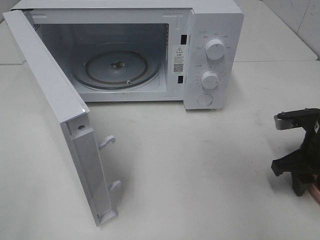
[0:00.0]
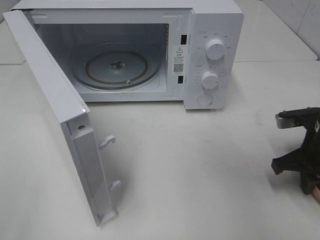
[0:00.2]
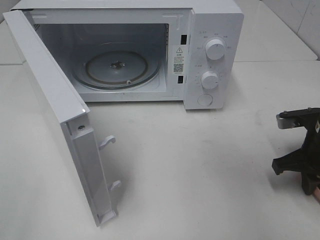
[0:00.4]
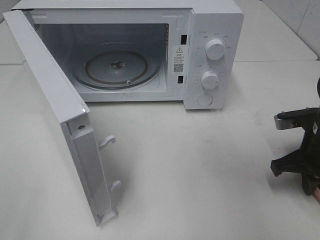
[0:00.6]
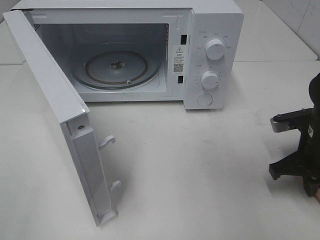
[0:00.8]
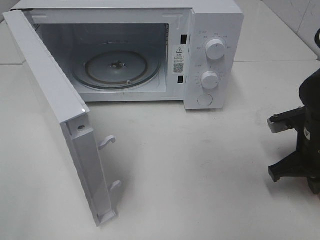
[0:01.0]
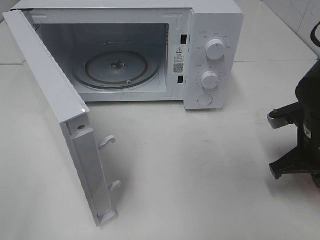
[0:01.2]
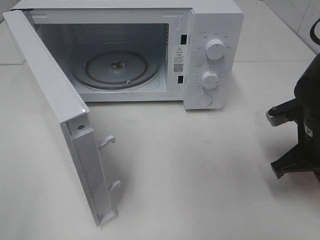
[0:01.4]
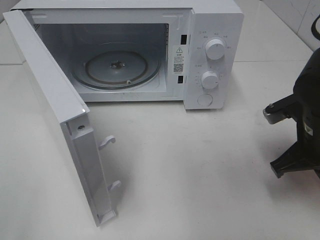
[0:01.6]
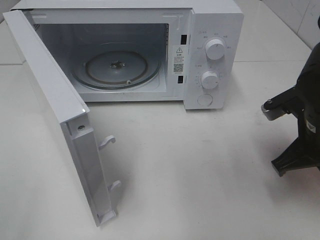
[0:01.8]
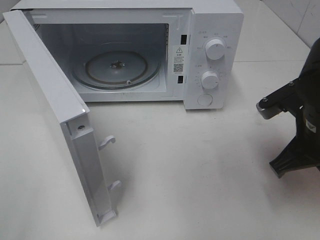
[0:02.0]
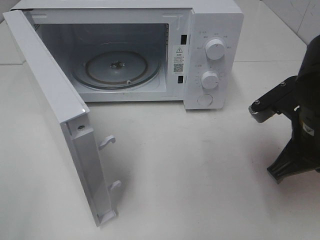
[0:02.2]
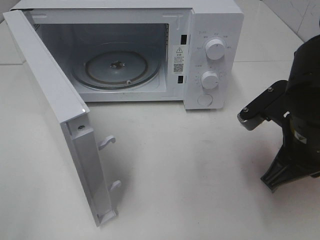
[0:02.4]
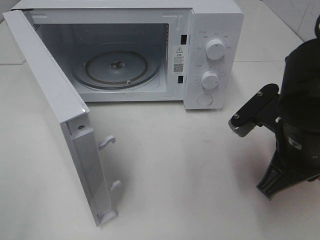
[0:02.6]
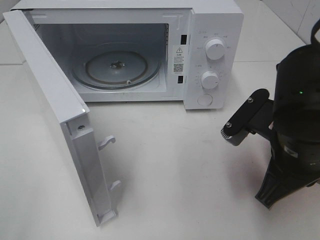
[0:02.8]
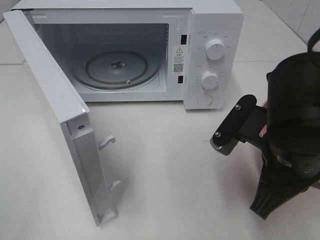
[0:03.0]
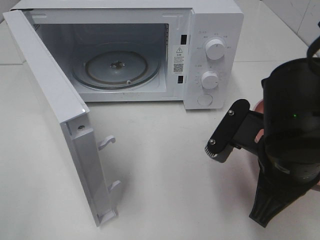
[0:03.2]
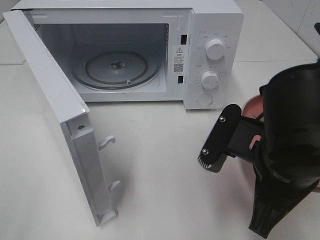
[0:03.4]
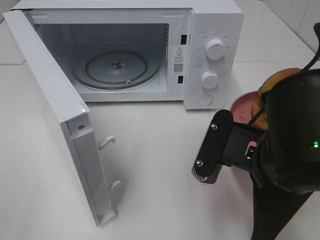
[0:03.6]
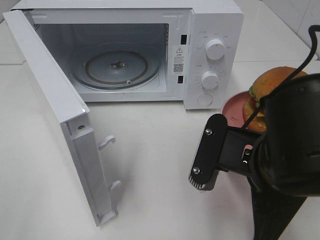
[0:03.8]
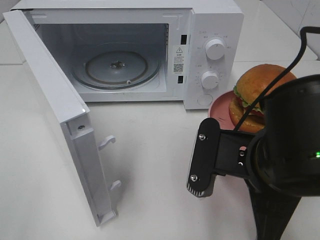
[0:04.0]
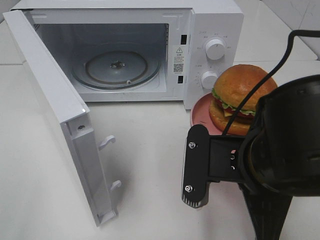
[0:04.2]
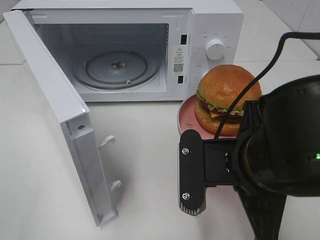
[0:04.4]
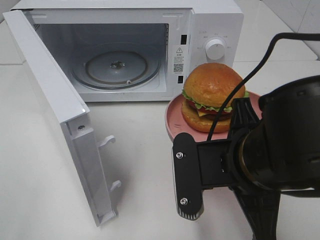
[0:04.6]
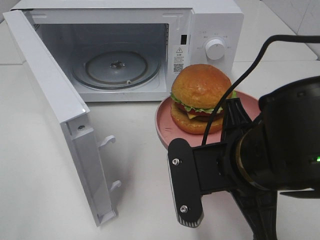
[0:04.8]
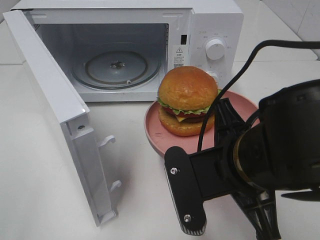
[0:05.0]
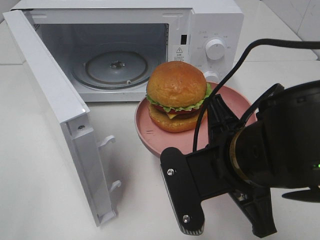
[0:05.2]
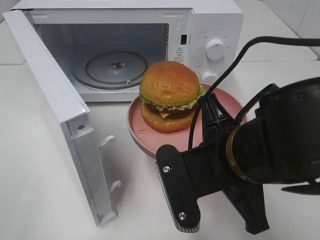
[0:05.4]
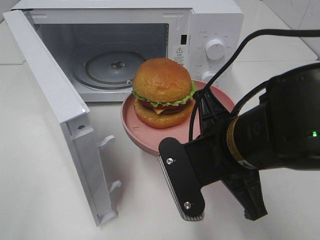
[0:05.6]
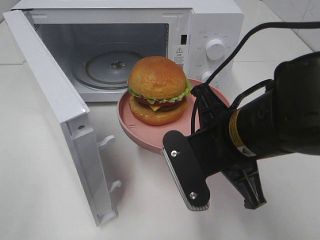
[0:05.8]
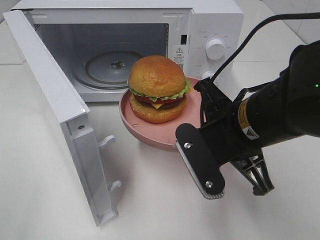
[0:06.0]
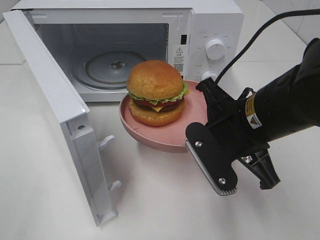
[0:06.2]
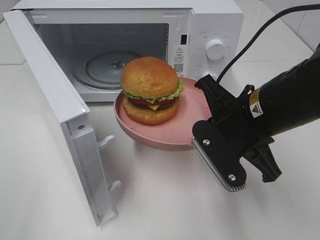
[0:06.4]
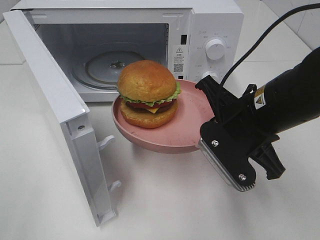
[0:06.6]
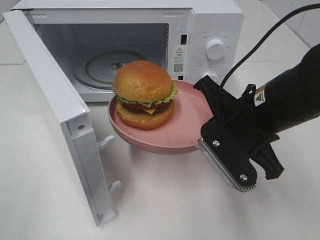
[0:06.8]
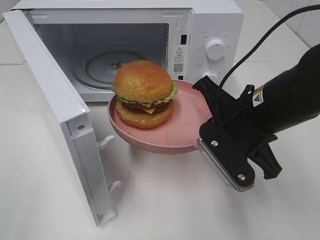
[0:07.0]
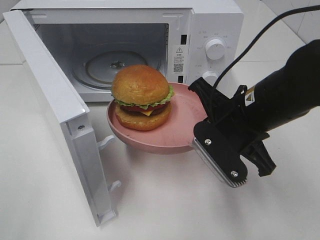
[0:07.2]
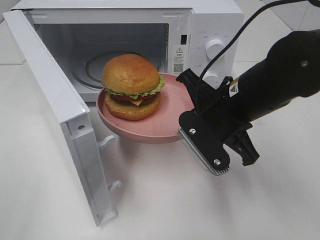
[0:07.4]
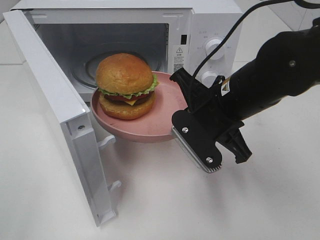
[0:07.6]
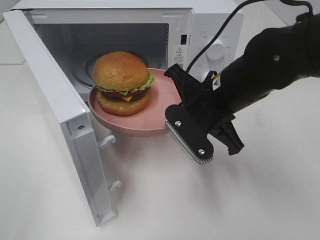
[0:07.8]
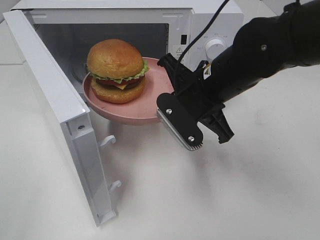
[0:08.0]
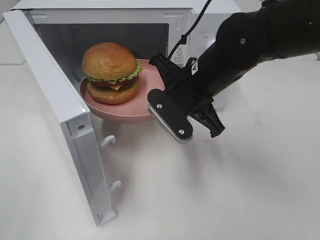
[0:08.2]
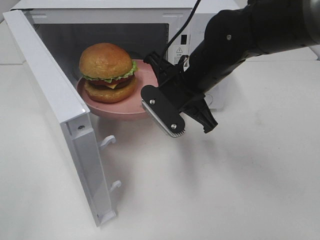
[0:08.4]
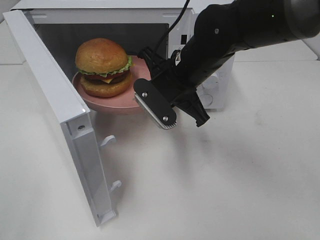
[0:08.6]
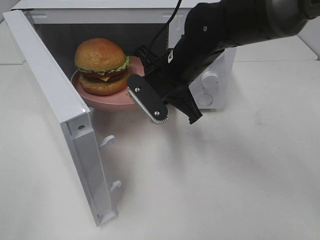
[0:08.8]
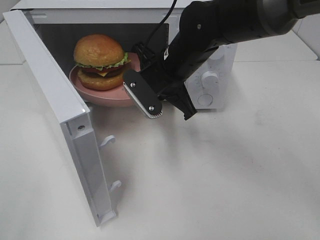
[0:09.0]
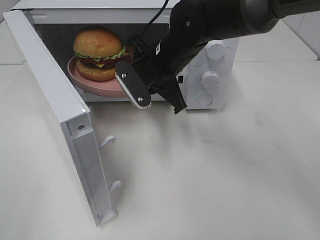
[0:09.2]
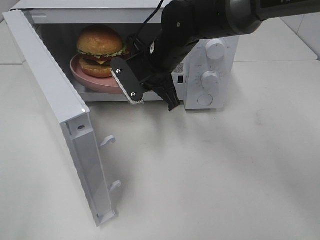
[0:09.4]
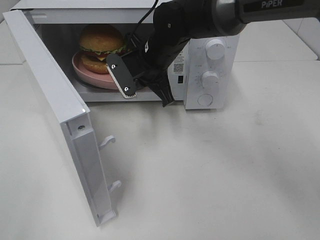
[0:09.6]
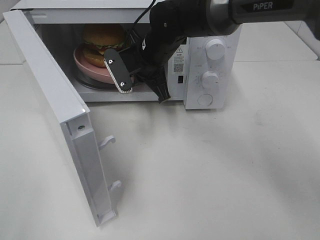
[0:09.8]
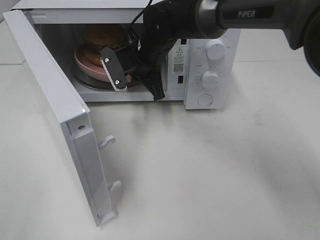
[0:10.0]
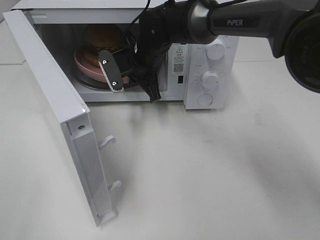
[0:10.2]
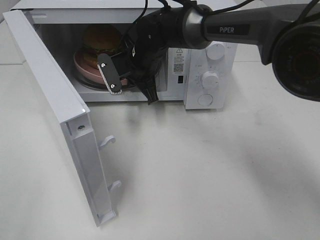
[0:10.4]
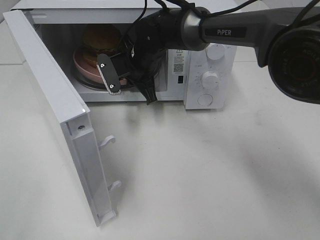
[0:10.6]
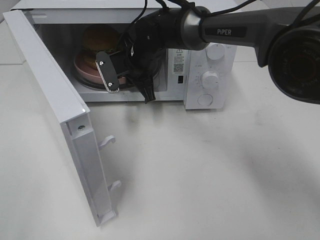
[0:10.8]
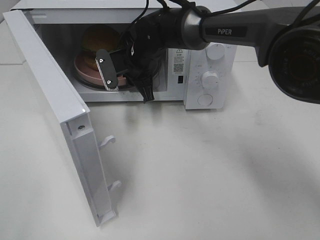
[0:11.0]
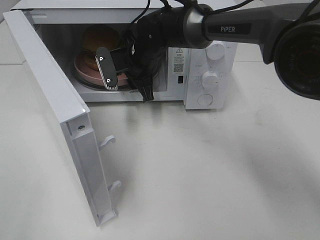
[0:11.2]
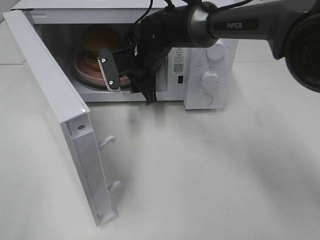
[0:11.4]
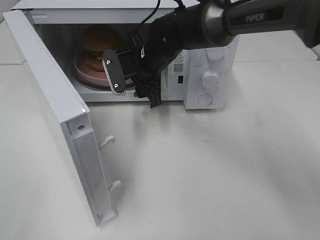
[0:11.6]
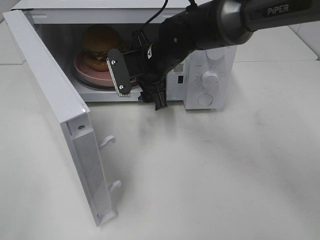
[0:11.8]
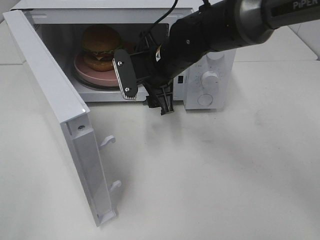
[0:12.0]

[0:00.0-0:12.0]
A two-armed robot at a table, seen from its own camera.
Task of the whole recording: Heat the burger.
Step, 0:01.0 to 0:11.2: Right hand: place the plate in the microwave.
0:00.0 to 0:01.6: The right gripper changes place by about 5 cm, and closes up.
0:01.6 to 0:03.0: The right gripper moves to the left and backward, some 10 cm.
0:03.0 to 0:04.4: The right gripper moves about 5 cm.
0:04.4 to 0:06.0: The right gripper is displaced forward by roughly 5 cm.
0:06.0 to 0:07.6: The right gripper goes some 5 cm forward.
0:07.6 to 0:09.0: The right gripper travels forward and to the left by approximately 10 cm.
0:09.0 to 0:10.4: The right gripper is displaced forward and to the left by roughly 10 cm.
0:10.4 to 0:12.0: The right gripper heads backward, covering some 5 cm, and opens up.

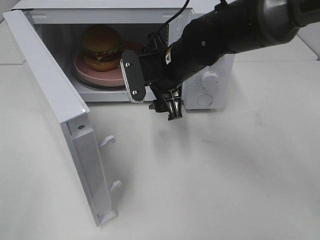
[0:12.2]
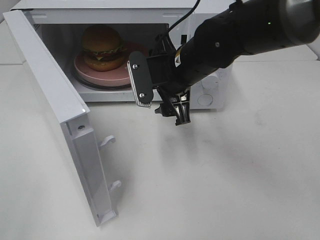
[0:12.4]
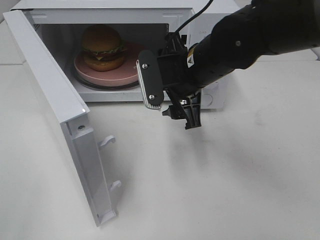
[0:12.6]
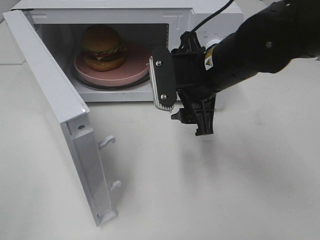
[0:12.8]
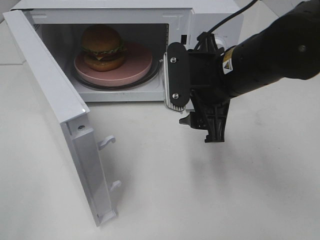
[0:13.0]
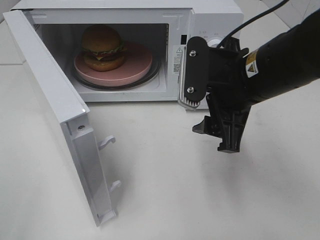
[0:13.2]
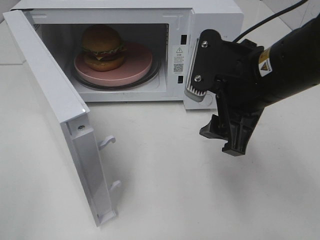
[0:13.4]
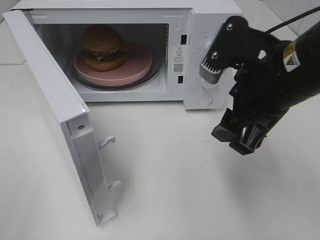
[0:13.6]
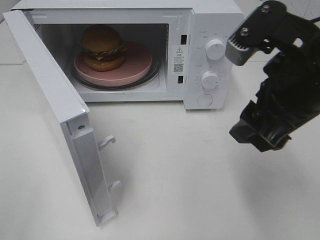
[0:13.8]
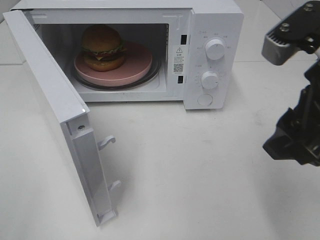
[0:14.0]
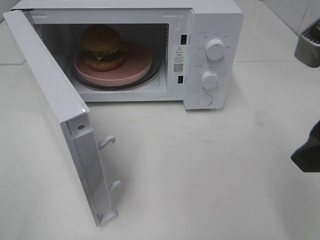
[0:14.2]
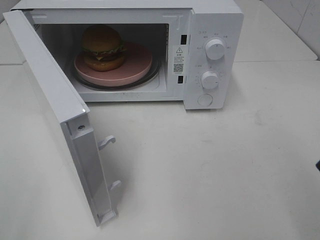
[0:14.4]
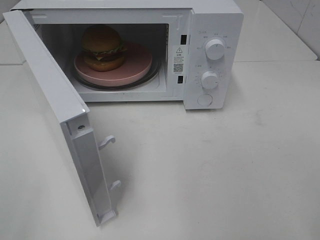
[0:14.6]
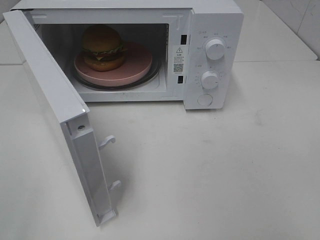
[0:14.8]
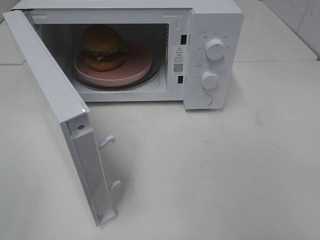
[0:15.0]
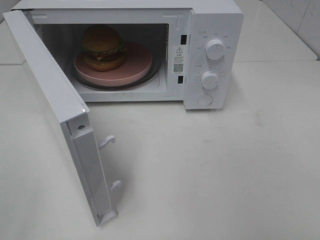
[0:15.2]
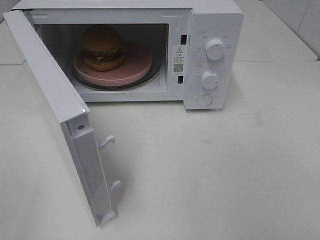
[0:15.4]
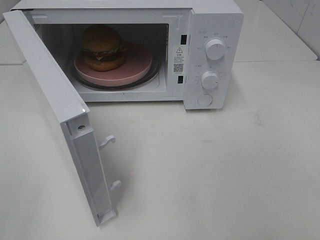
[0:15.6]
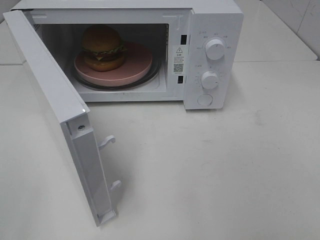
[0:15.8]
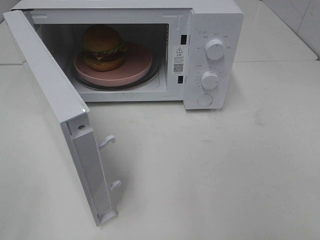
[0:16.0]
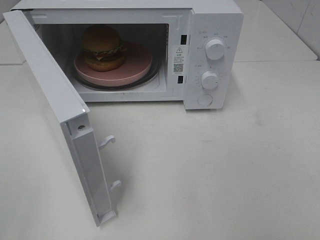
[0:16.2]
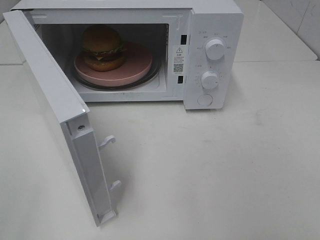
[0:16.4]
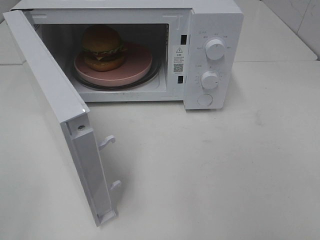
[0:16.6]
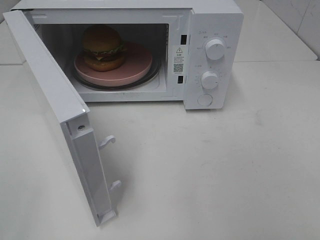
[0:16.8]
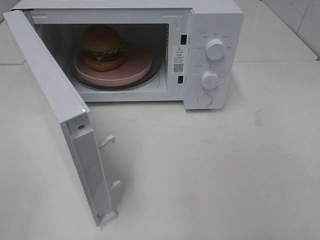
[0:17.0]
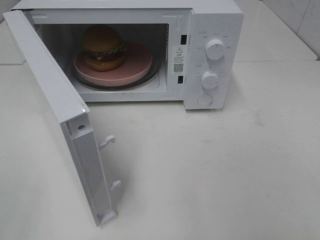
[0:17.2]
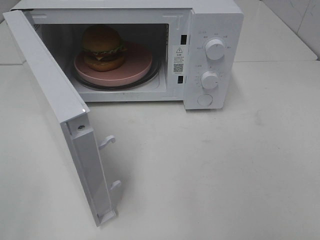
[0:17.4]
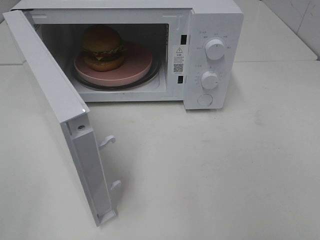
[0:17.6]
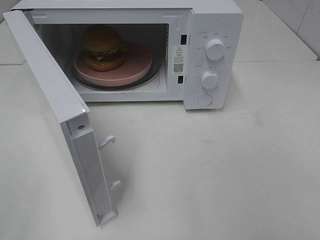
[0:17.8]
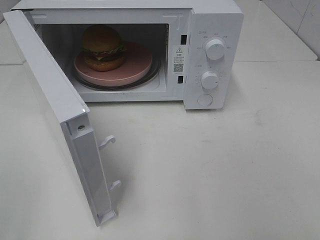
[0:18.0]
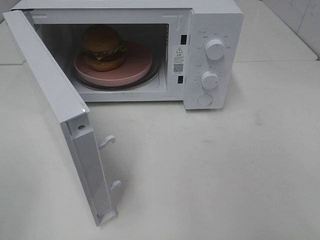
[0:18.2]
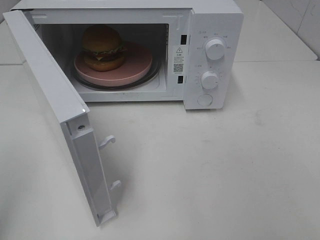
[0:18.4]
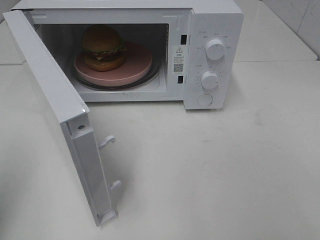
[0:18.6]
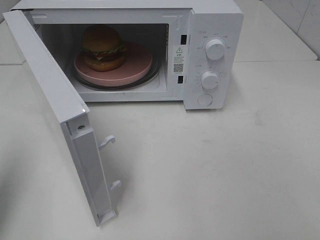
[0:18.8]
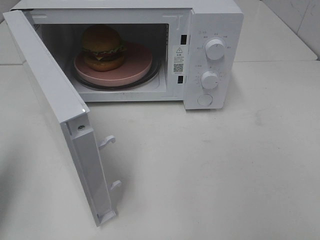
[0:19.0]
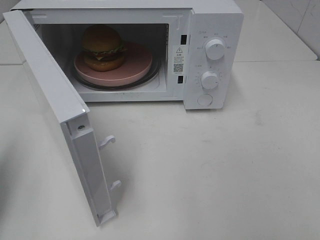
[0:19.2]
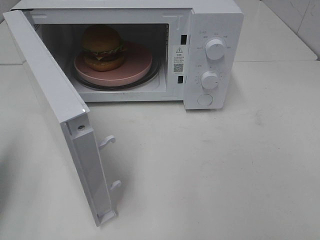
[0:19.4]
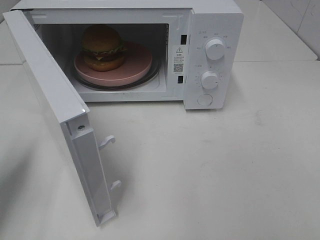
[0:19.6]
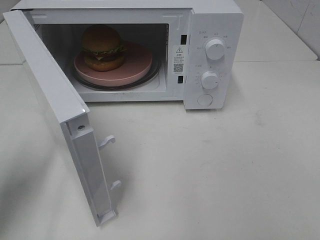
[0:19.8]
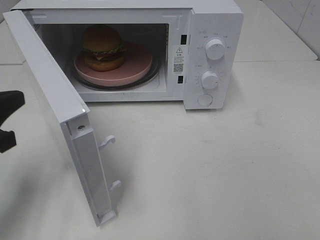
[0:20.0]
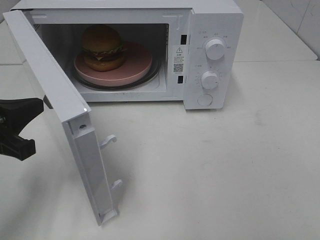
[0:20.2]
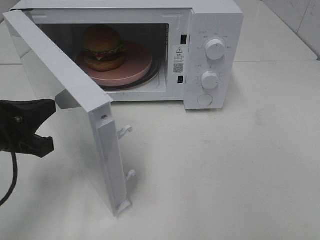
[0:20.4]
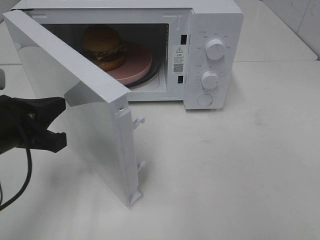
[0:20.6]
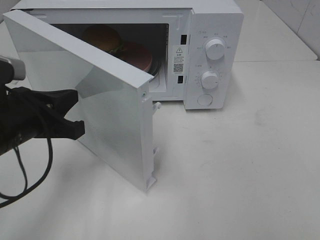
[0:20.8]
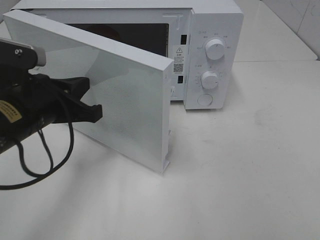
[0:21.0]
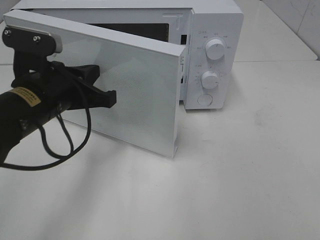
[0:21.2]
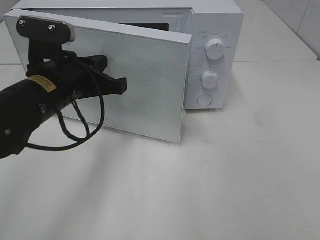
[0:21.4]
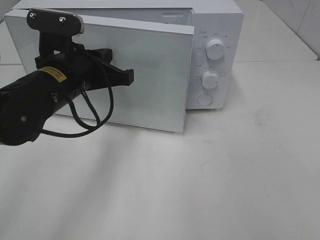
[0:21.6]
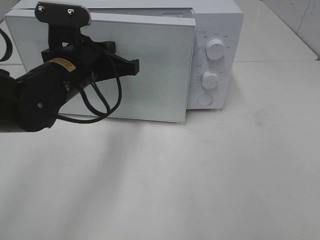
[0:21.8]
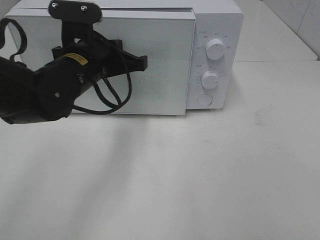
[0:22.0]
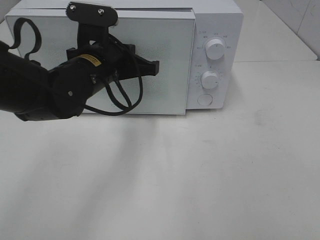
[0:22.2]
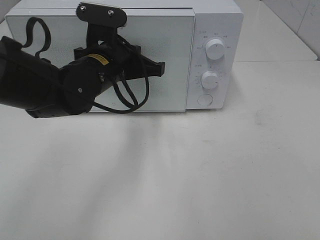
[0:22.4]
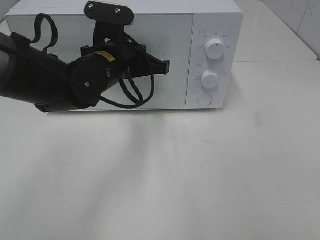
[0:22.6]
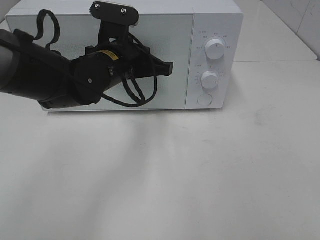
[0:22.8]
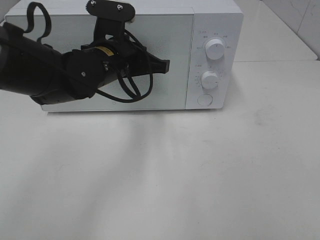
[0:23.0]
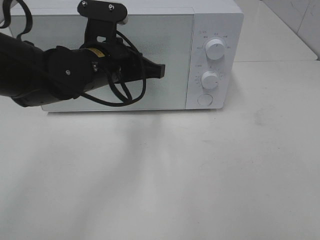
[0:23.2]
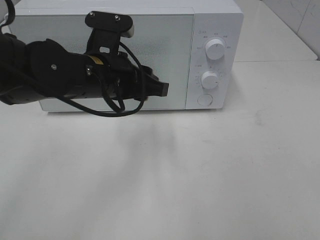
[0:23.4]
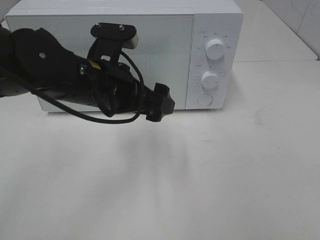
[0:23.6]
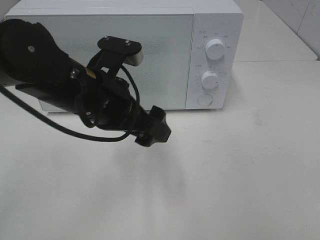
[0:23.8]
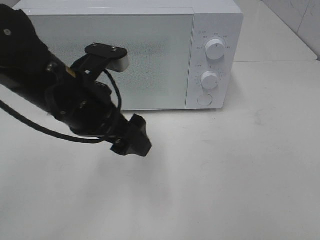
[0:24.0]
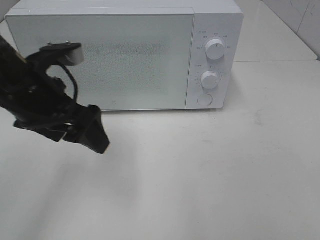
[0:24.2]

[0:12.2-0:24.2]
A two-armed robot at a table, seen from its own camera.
Task of the whole recording: Heat the burger.
Step, 0:12.2 to 0:23.4: Left hand: close the microwave door.
0:12.2 to 0:13.8: The right gripper moves backward, to the right and upward, about 25 cm.
0:13.8 to 0:15.2: The right gripper shifts approximately 20 cm backward and to the right.
0:18.2 to 0:19.8: The left gripper travels forward and downward by roughly 20 cm, and closes up.
0:19.8 to 0:21.2: The left gripper goes about 15 cm to the right and forward.
0:21.2 to 0:22.6: The left gripper shifts some 10 cm forward and to the right.
0:22.6 to 0:24.2: The left gripper heads to the left and backward, covering approximately 15 cm, and opens its fingers.
